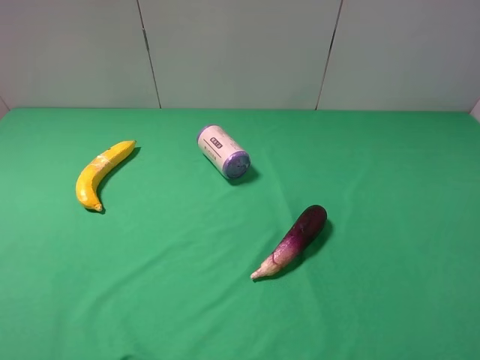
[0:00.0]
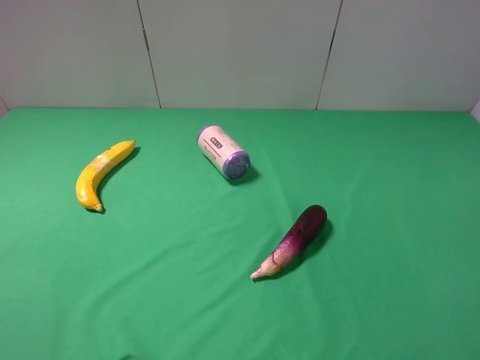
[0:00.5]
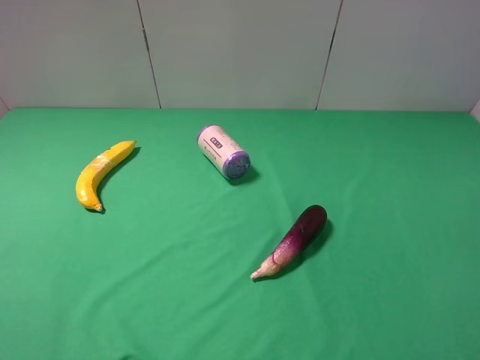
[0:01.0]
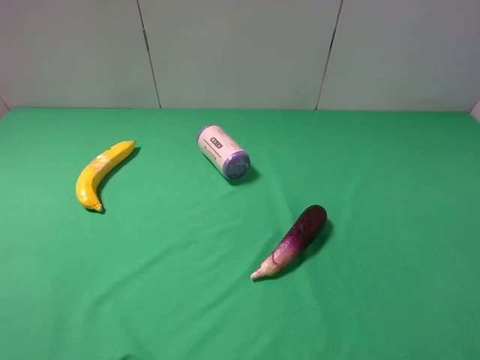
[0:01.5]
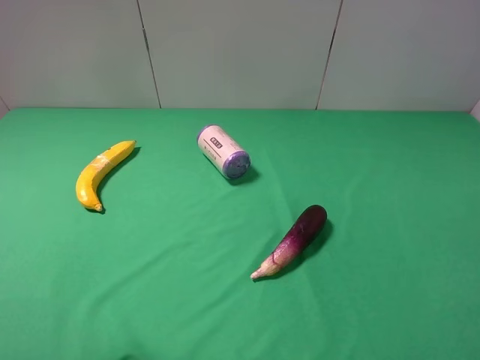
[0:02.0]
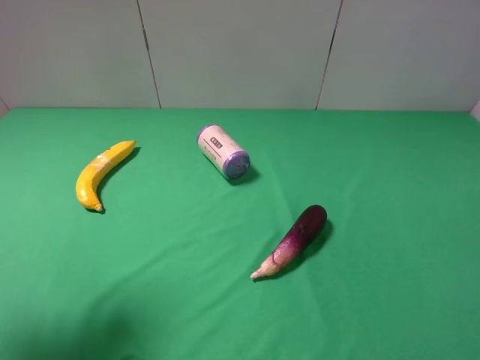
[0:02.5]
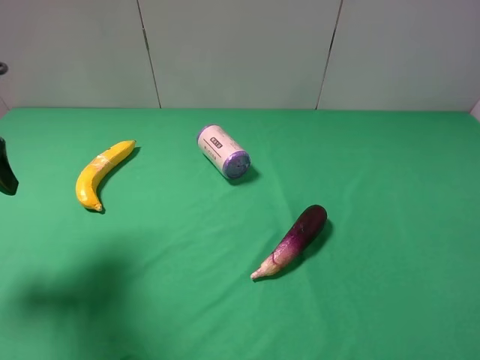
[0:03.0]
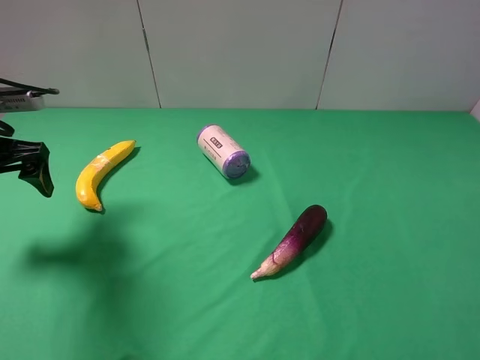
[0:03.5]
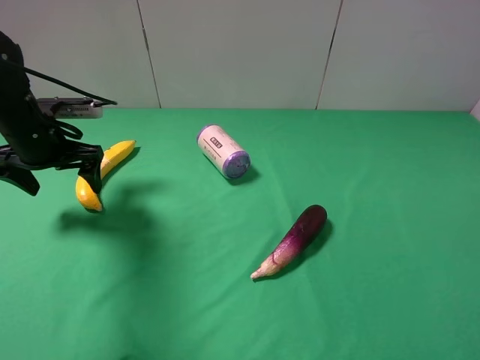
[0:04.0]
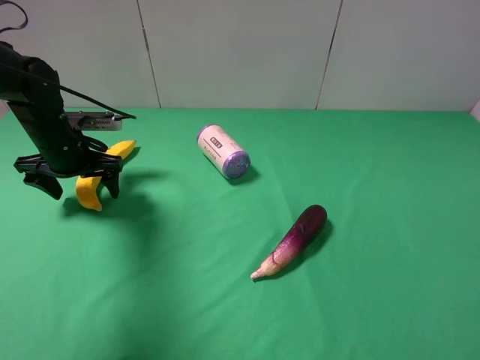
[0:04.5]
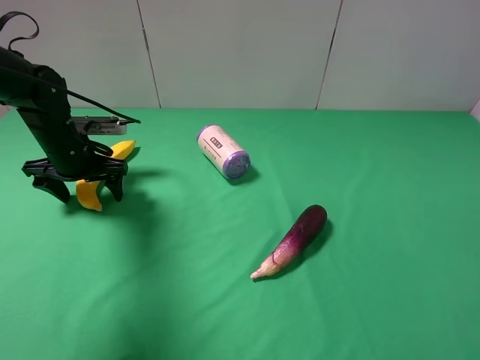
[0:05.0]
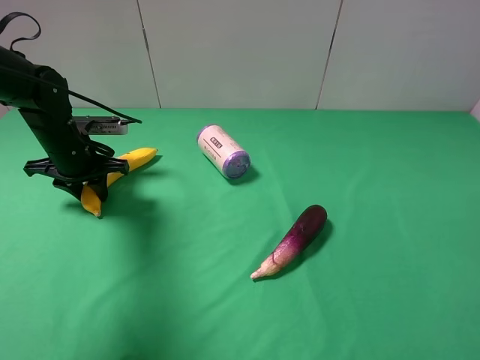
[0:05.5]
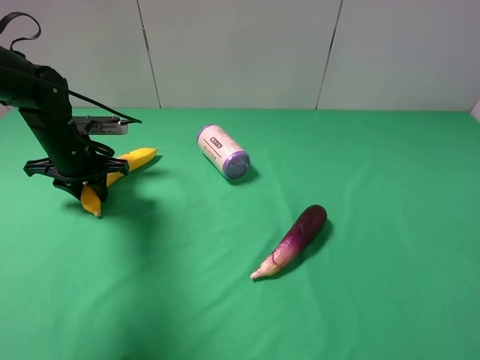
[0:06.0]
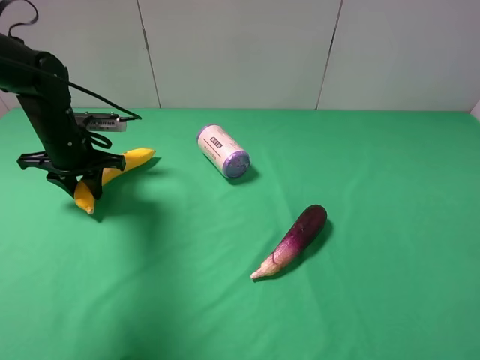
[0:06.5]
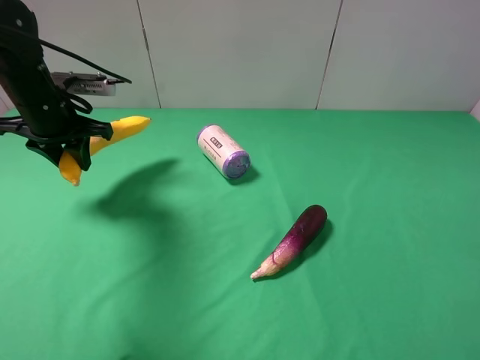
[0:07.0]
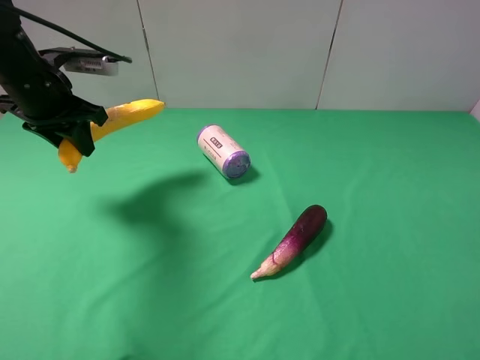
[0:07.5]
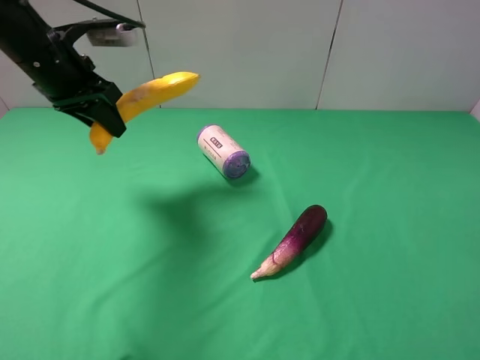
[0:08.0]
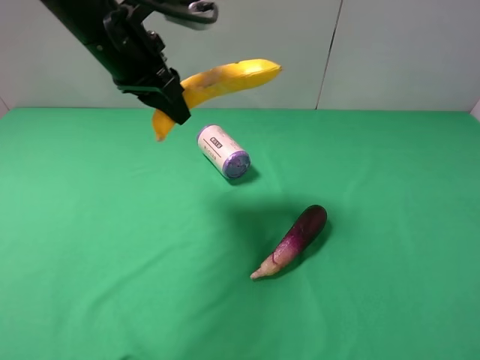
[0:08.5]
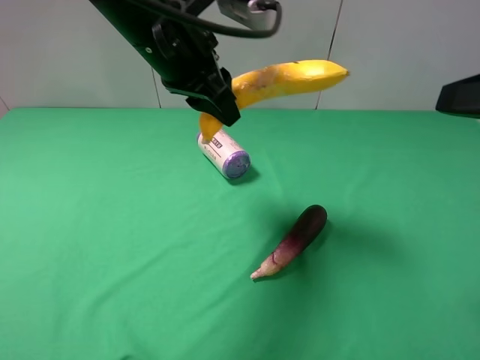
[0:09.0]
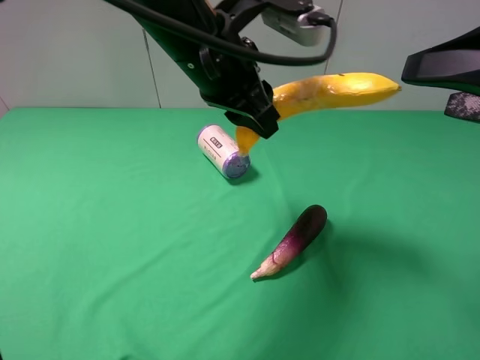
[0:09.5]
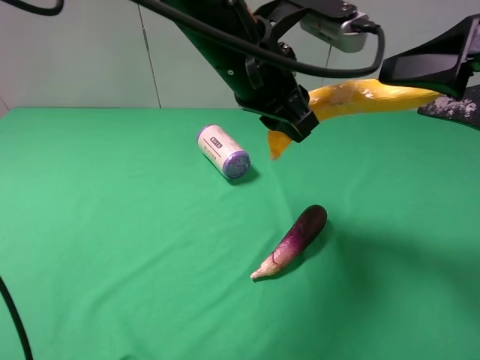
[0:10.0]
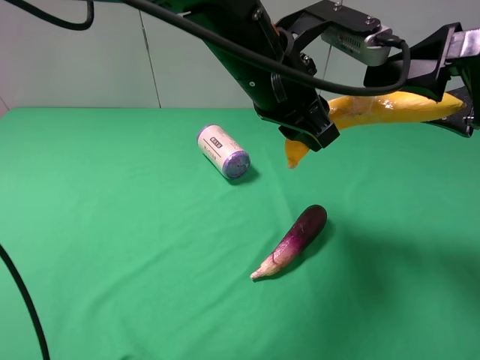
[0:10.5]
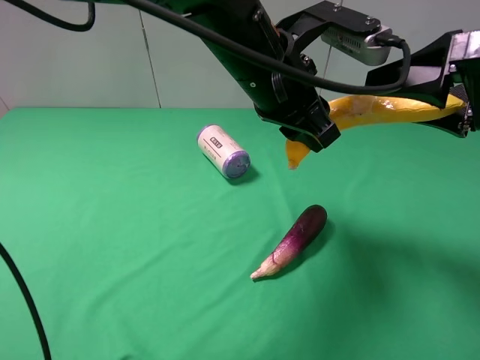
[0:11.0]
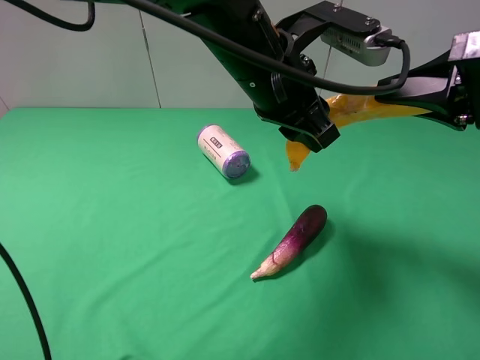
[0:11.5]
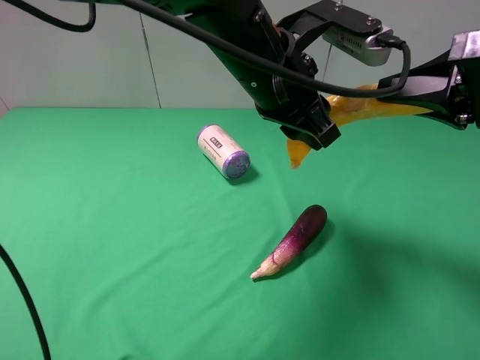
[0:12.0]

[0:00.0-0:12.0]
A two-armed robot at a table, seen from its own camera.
Task of the whole recording: use the left gripper to pick up the item and transfer it from the left gripper to the right gripper.
Step, 0:00.0 to 0:06.0: Use the left gripper to grab the banana on the left side of the table.
0:02.0 to 0:04.0: The left gripper is displaced forward and downward by approximately 30 cm.
0:04.0 to 0:06.0: The left gripper shifts about 5 cm downward, and closes up.
0:06.0 to 0:08.0: The left gripper heads upward, covering some 15 cm.
0:08.0 to 0:10.0: The right gripper travels forward by roughly 15 cm, while the left gripper goes about 25 cm to the right.
0:10.0 to 0:12.0: The right gripper closes its fingers.

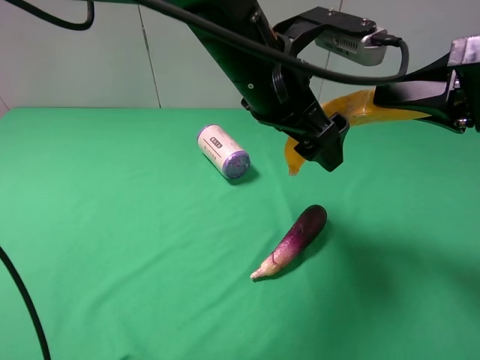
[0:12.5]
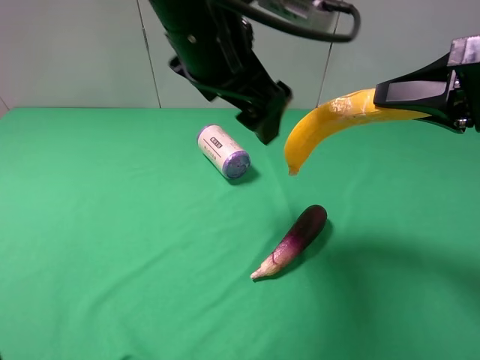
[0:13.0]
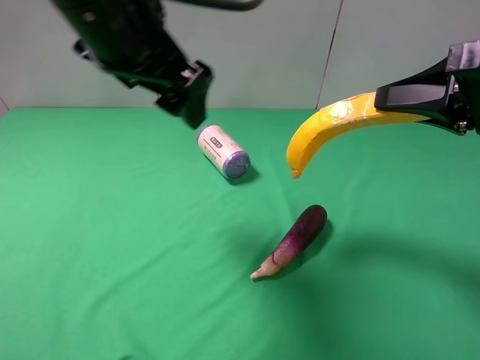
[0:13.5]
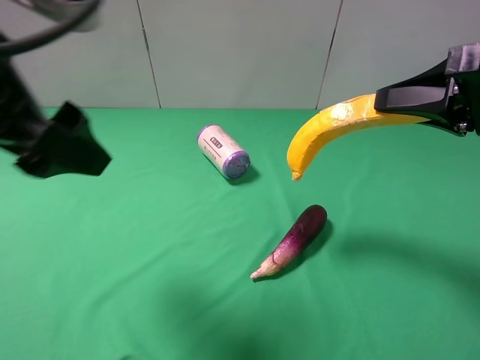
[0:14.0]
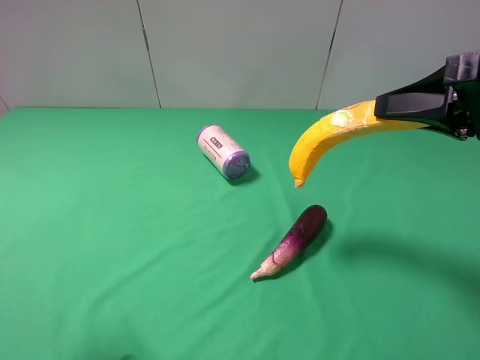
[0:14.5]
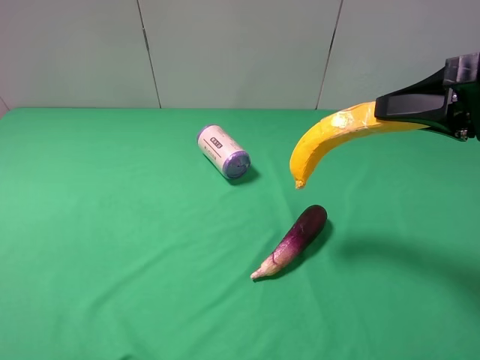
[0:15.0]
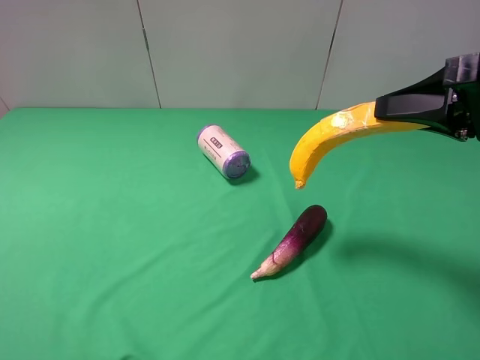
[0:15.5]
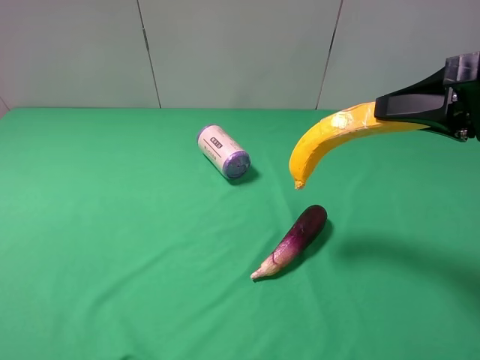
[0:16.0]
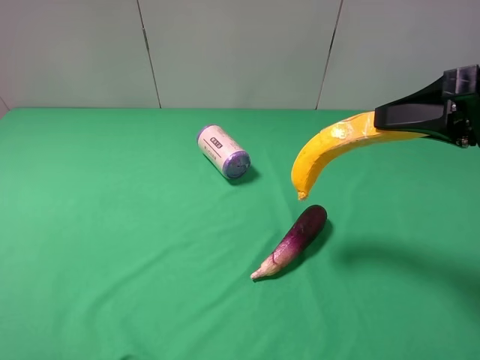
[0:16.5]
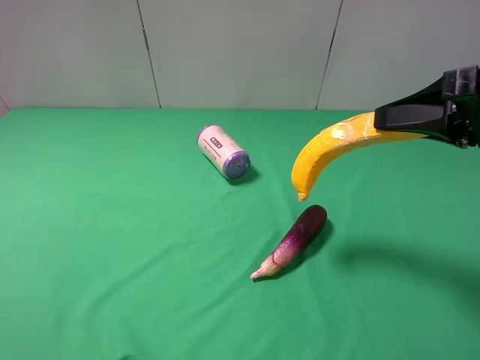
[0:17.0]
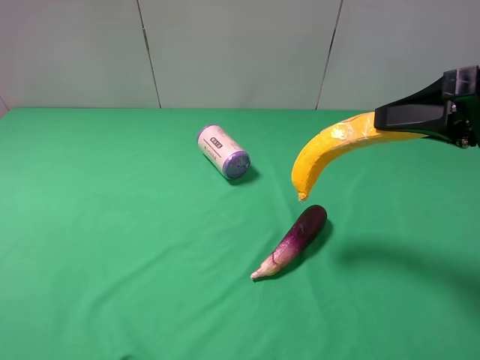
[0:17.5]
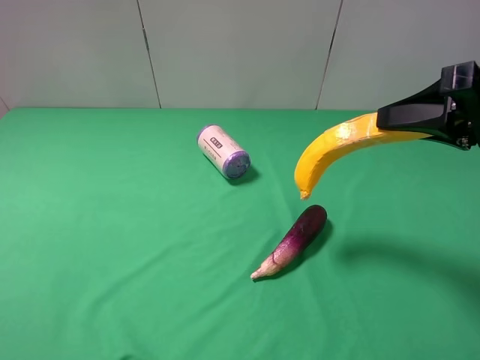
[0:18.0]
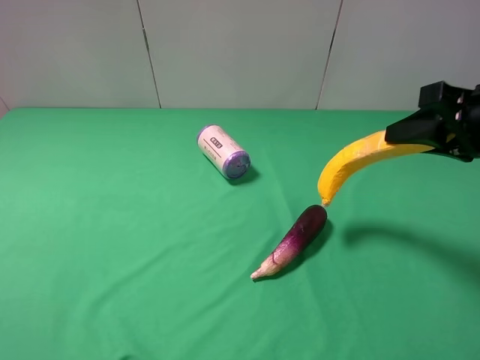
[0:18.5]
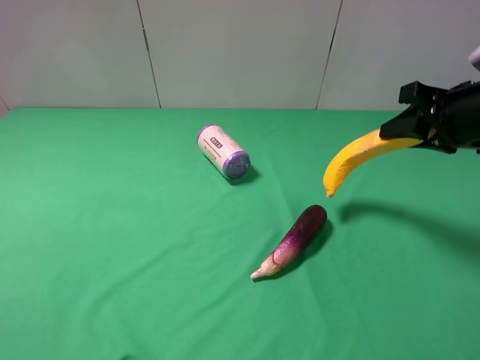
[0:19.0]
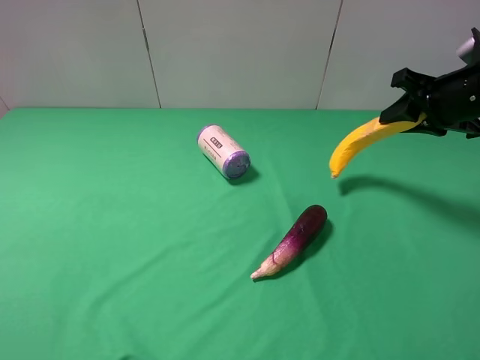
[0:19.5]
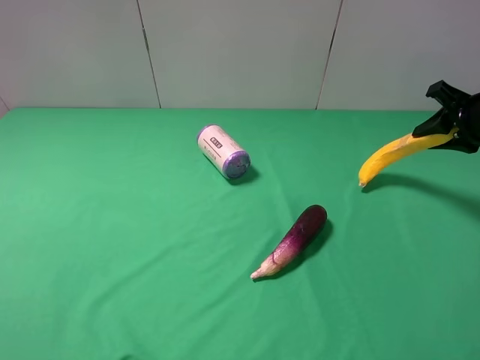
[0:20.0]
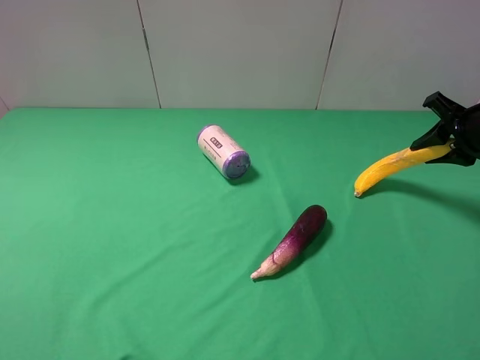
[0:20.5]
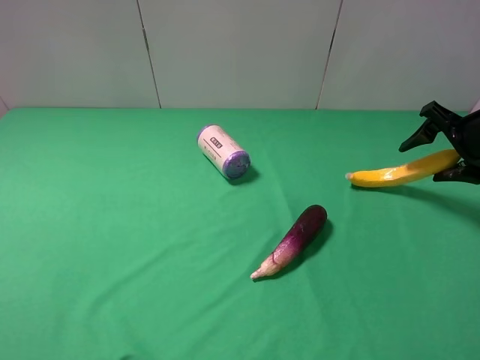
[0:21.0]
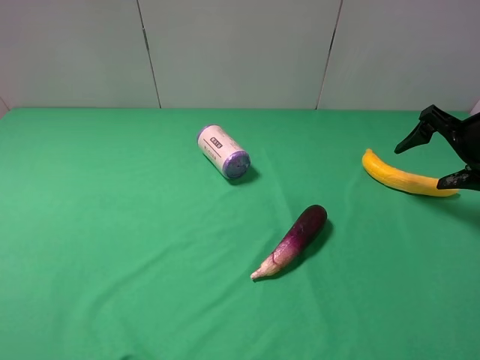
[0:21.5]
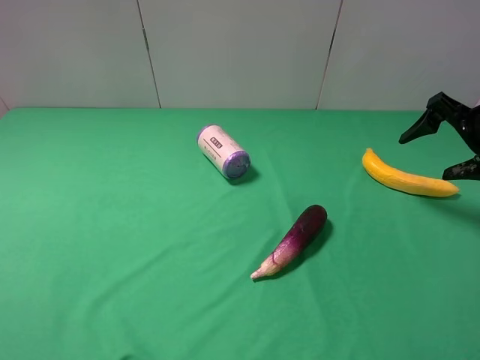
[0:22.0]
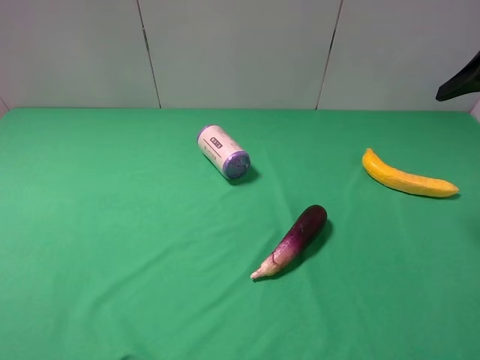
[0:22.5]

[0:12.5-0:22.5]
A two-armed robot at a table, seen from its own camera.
Task of the whole recording: use the left gripper to pick up the item and transfer it from the left gripper to the right gripper.
Step, 0:13.0 to 0:22.0: The right gripper places banana on the right side of the table.
0:12.5 to 0:14.5: The left gripper shifts some 35 cm to the left and backward.
0:14.5 to 0:16.5: The left gripper moves roughly 5 cm.
0:16.5 to 0:18.5: The grippers move only a little.
0:18.5 to 0:20.5: The right gripper goes roughly 15 cm forward, to the right and downward.
0:20.5 to 0:22.5: The right gripper moves upward and backward, some 15 cm, and opens up.

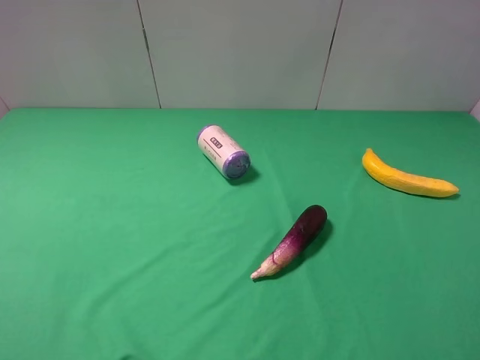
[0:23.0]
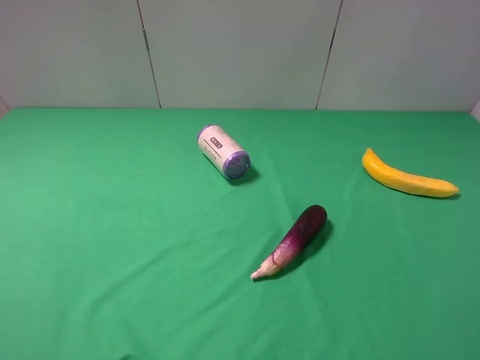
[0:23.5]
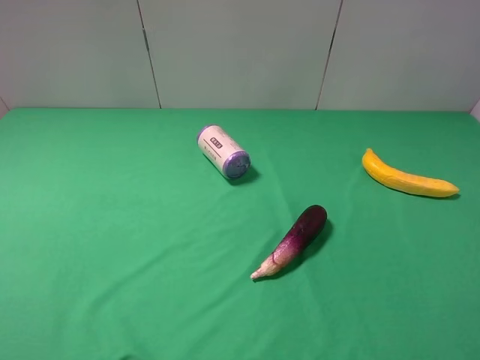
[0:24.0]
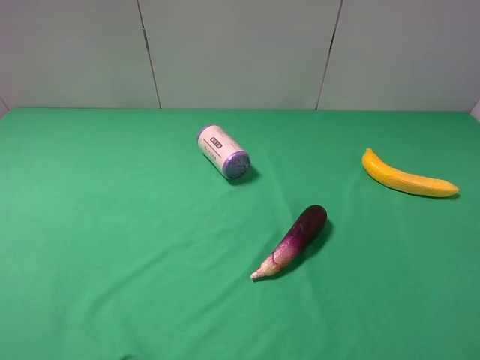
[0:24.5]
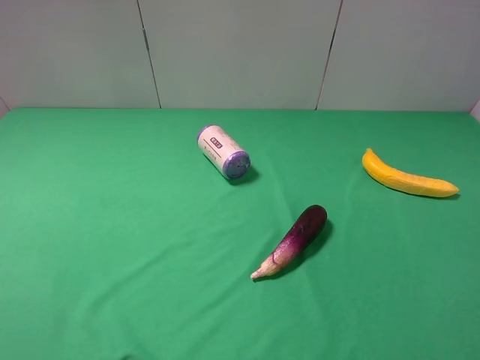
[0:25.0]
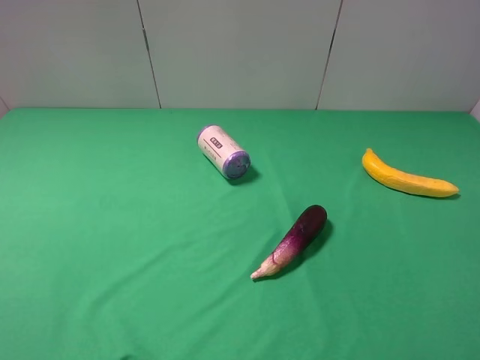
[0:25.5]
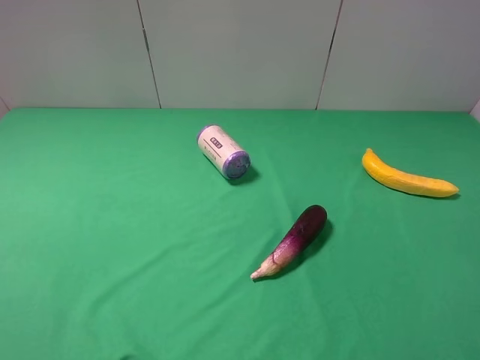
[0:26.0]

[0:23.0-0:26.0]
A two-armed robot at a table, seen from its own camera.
Task of the whole recording: use the left gripper to pick up the item and transfer it from the left gripper to the right gripper.
0:24.5 to 0:26.0: Both grippers stay about where they are.
